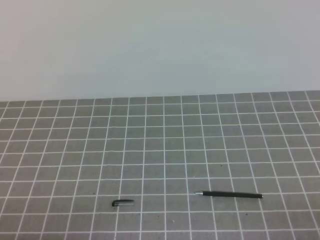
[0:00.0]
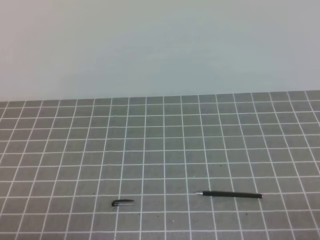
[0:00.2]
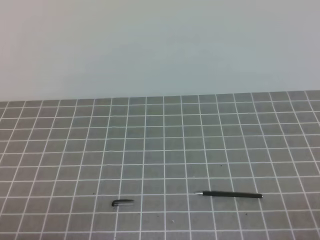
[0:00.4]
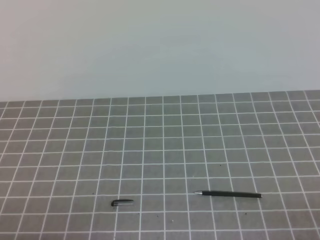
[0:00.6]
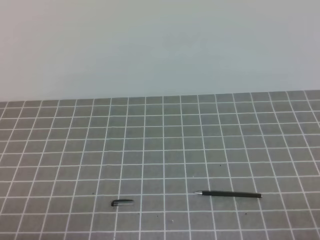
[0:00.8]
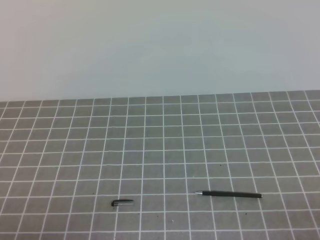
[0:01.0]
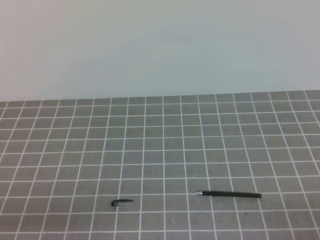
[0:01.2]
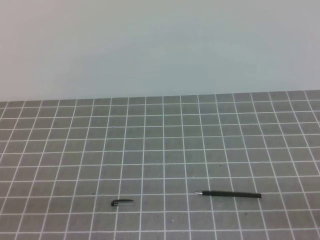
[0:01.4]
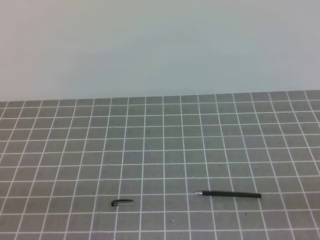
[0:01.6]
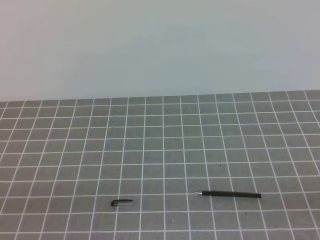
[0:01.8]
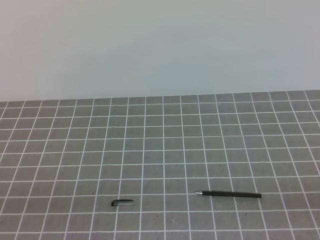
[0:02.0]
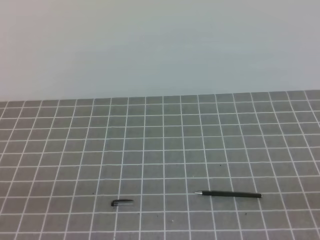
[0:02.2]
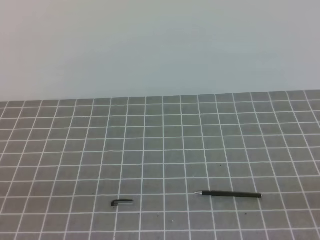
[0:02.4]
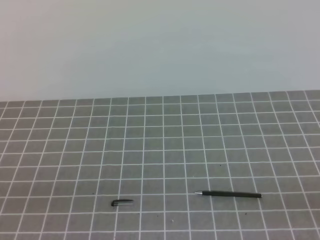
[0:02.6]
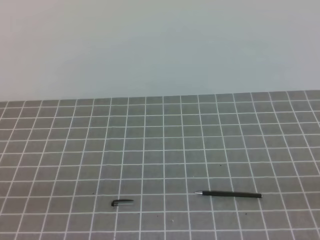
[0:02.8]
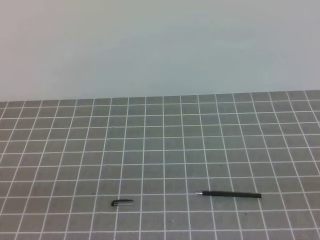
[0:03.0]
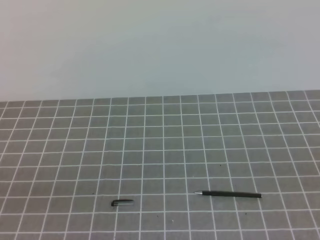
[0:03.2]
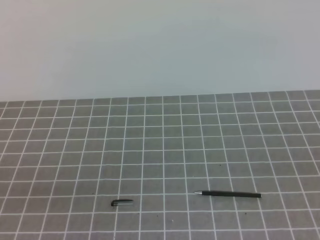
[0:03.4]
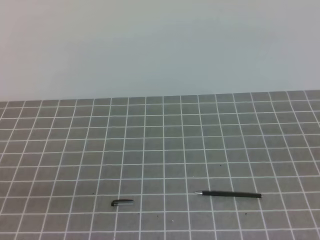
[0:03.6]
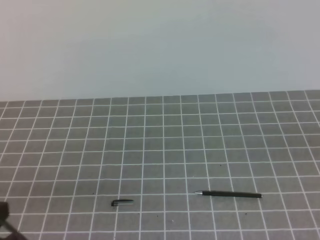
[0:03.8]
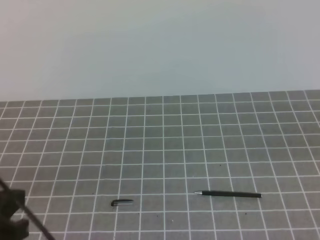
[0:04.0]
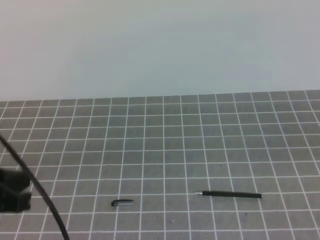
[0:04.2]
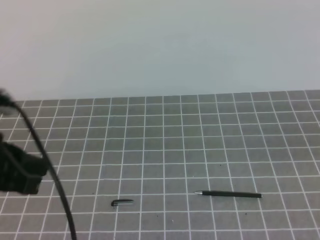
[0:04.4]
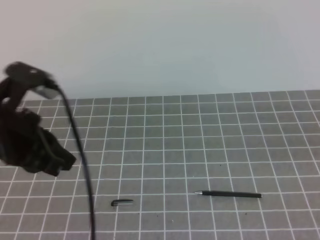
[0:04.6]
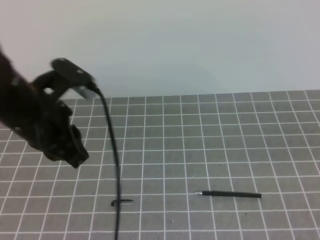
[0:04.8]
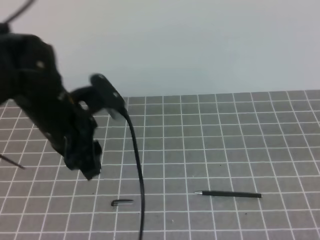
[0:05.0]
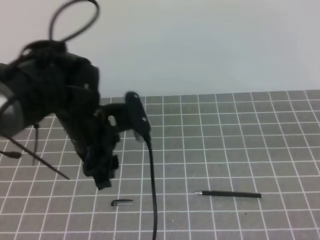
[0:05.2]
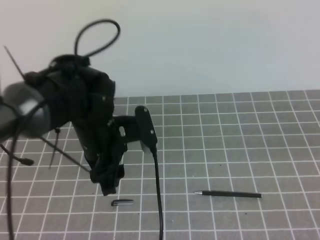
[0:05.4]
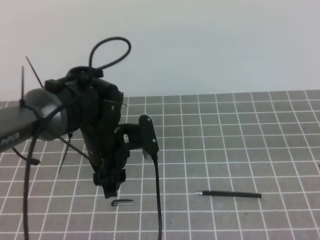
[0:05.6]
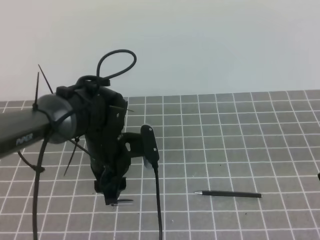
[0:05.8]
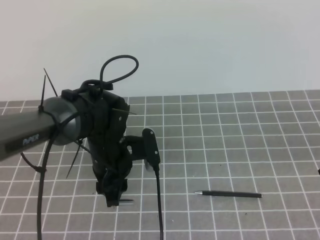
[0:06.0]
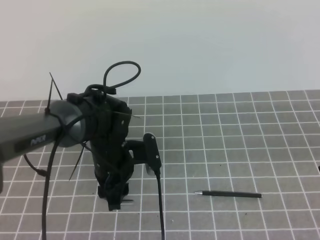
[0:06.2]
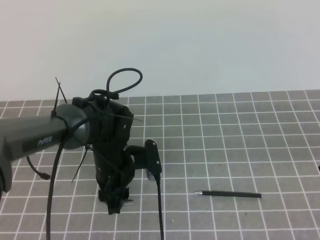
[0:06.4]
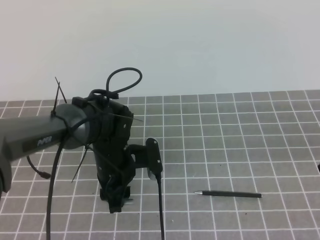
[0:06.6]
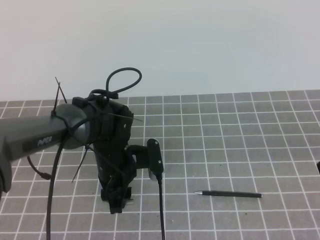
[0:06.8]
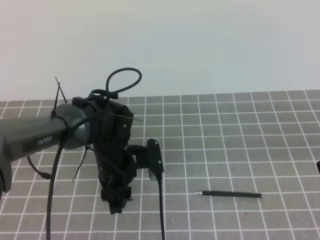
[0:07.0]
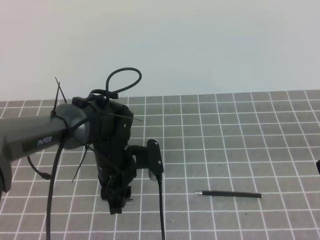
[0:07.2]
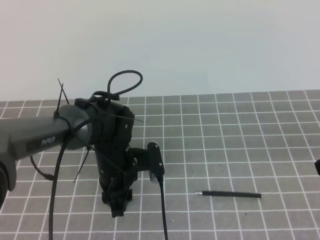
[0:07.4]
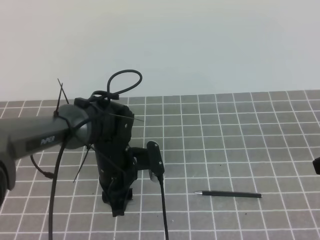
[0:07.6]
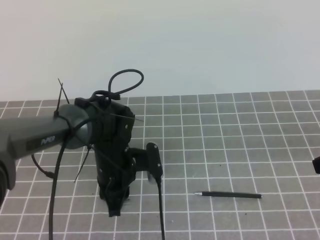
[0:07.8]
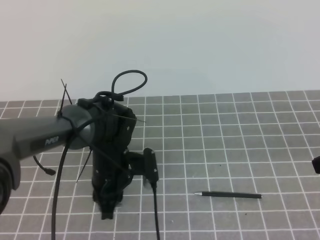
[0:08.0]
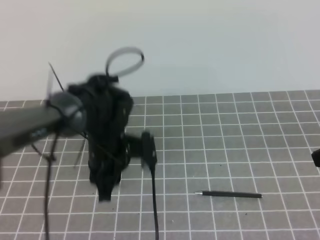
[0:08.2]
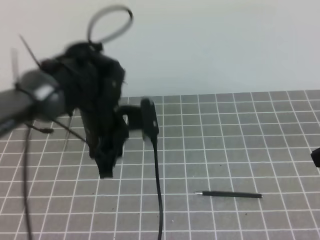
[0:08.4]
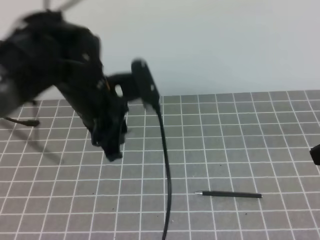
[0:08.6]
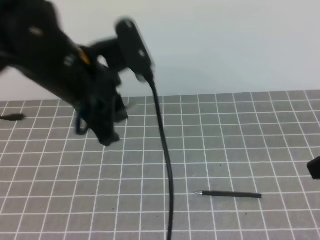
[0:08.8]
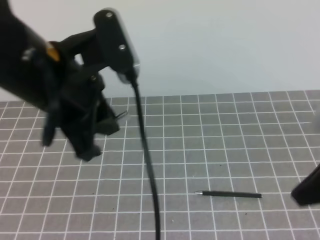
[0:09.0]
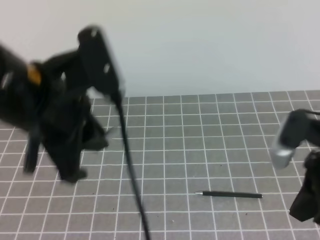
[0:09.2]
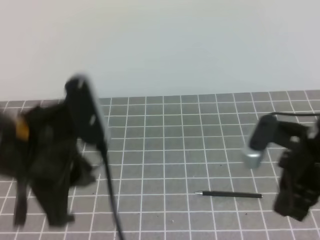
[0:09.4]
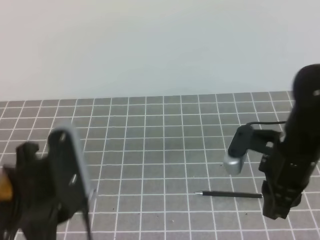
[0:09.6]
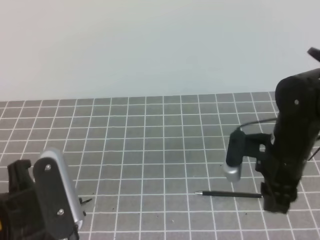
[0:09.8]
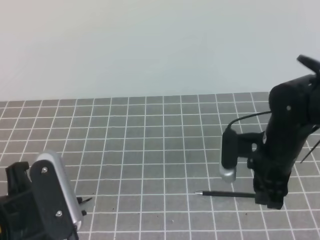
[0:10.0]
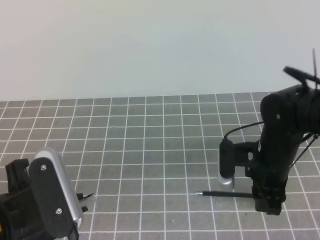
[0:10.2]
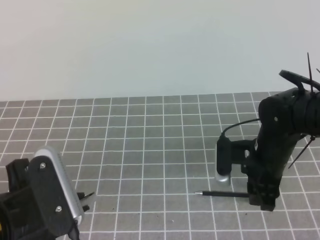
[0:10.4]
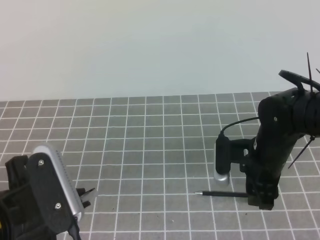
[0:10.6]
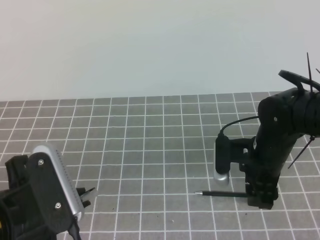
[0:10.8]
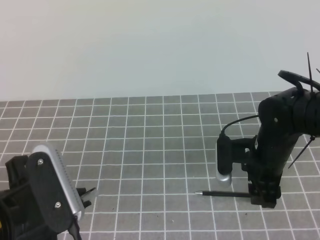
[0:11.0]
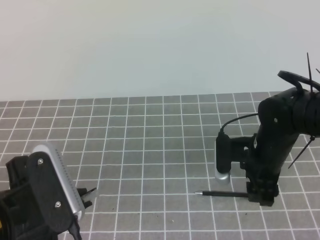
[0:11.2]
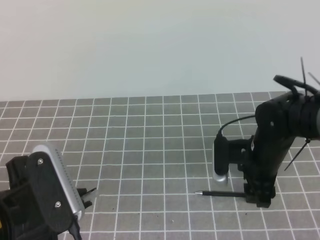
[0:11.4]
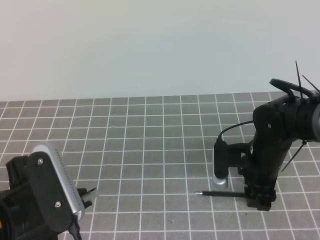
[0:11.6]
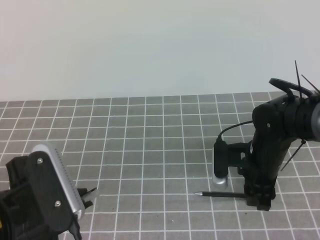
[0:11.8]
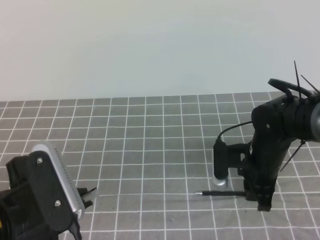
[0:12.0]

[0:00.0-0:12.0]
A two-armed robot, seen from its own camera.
Task of the whole recording: on the grey tablecloth, hold the pen cap in one hand and the pen in the other, then cover the pen cap.
0:03.0 to 0:04.4: The left gripper goes roughly 15 cm forward and upward.
0:04.4 to 0:06.0: The left gripper moves downward, forward and to the right, roughly 25 cm, and opens up.
0:06.0 to 0:07.6: The left gripper closes.
0:07.6 to 0:09.0: The left gripper heads upward, covering about 25 cm, while the right gripper ends up some 5 cm from where it was.
0:09.0 to 0:10.4: The left gripper goes some 15 cm downward, backward and to the left. The right gripper moves downward, forward and to the left, approximately 20 cm, and opens its fingers.
0:10.4 to 0:12.0: The right gripper closes.

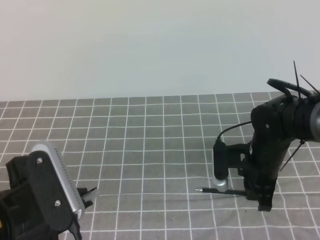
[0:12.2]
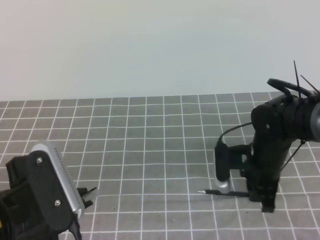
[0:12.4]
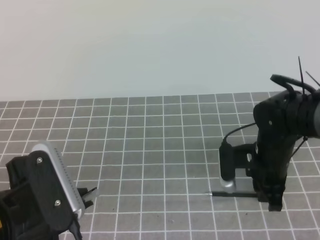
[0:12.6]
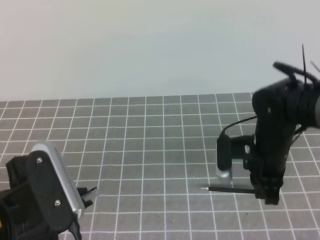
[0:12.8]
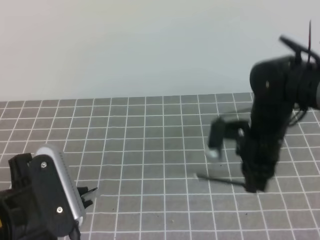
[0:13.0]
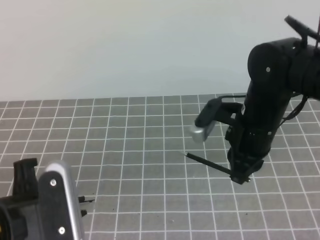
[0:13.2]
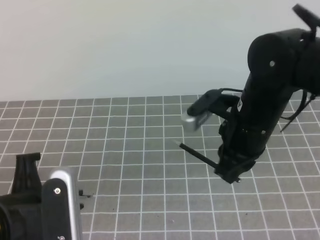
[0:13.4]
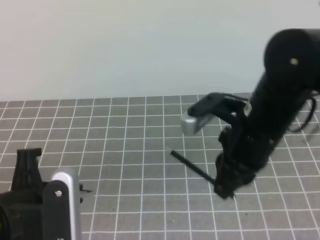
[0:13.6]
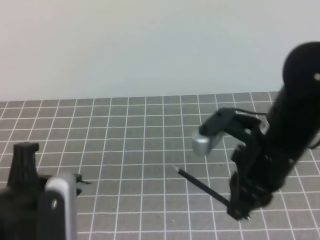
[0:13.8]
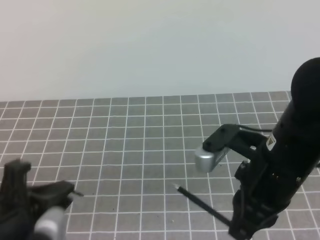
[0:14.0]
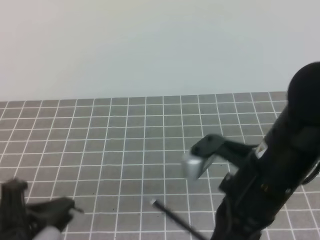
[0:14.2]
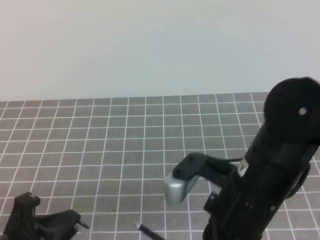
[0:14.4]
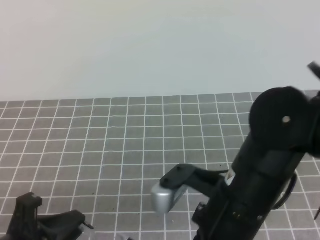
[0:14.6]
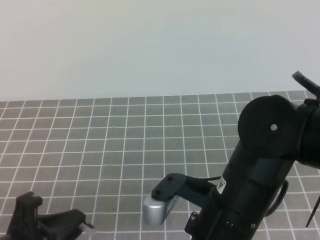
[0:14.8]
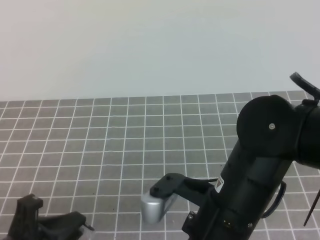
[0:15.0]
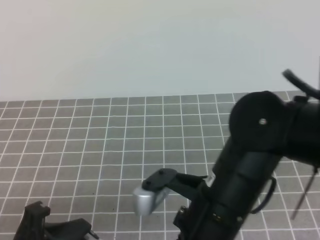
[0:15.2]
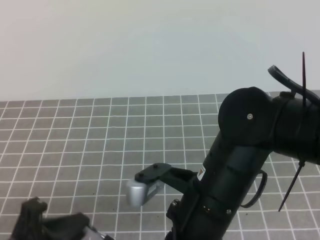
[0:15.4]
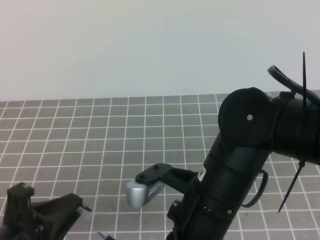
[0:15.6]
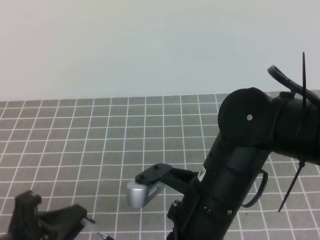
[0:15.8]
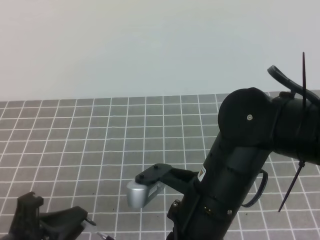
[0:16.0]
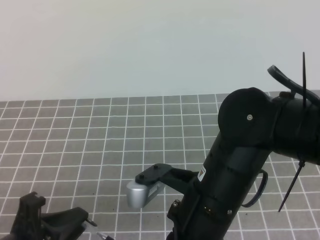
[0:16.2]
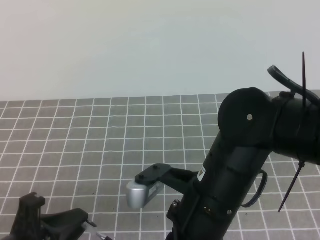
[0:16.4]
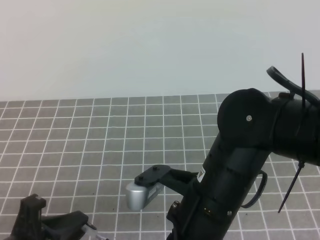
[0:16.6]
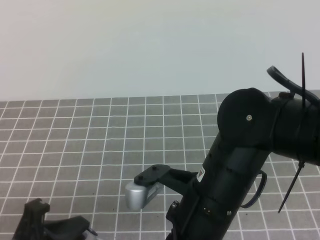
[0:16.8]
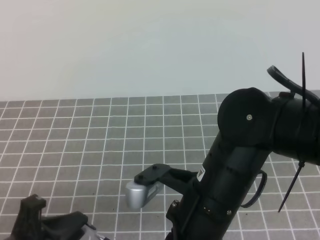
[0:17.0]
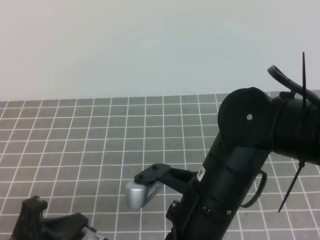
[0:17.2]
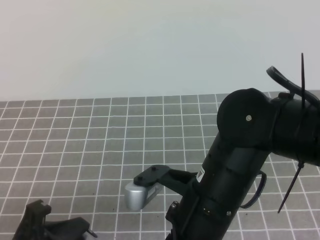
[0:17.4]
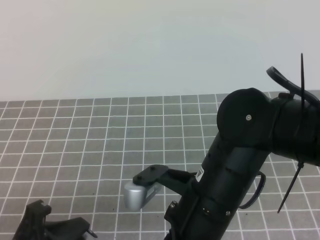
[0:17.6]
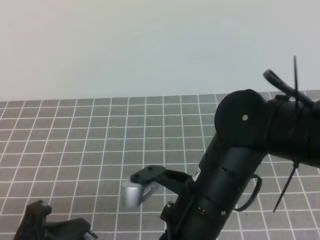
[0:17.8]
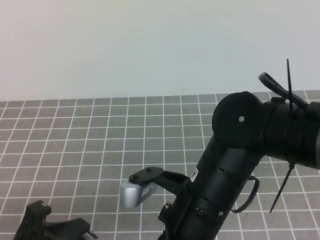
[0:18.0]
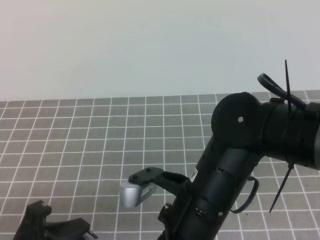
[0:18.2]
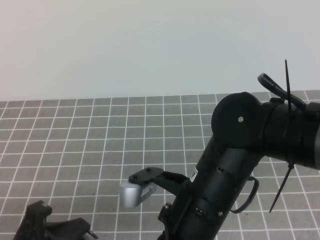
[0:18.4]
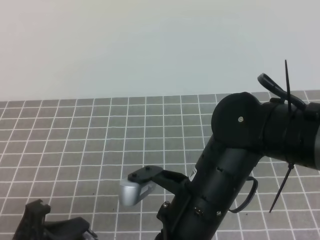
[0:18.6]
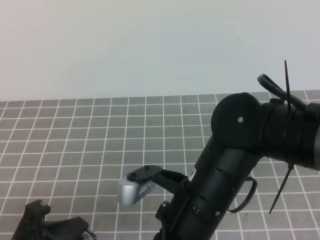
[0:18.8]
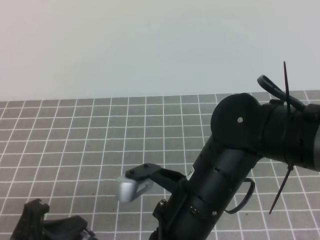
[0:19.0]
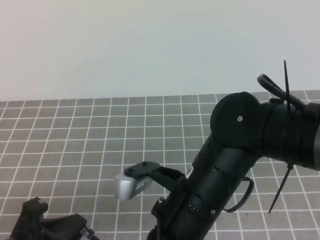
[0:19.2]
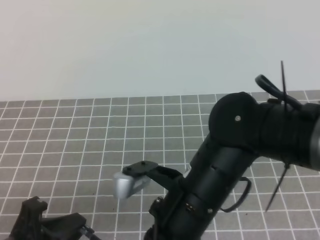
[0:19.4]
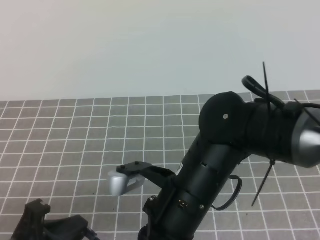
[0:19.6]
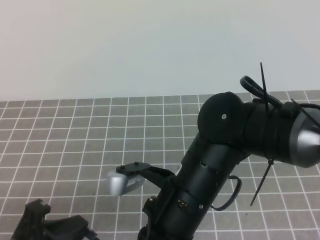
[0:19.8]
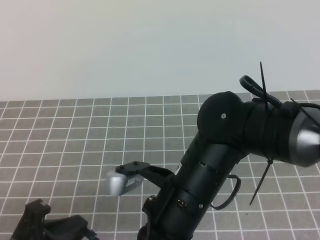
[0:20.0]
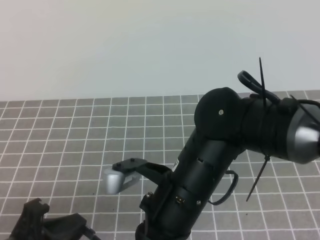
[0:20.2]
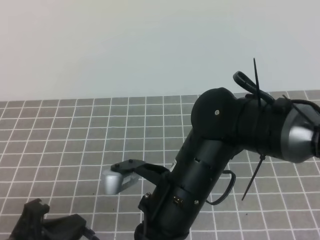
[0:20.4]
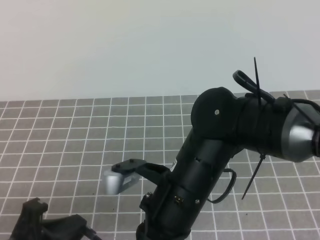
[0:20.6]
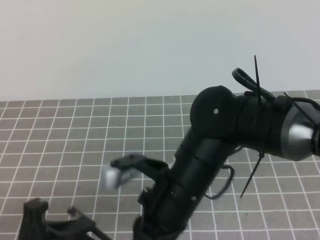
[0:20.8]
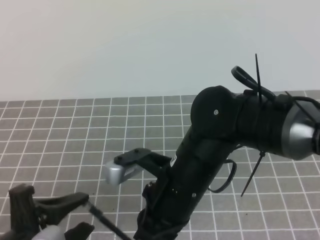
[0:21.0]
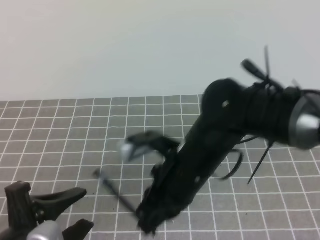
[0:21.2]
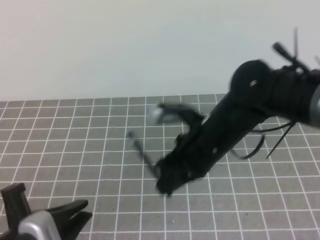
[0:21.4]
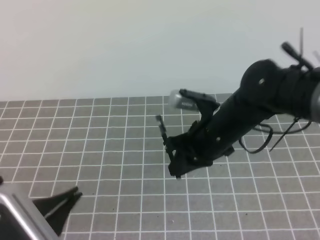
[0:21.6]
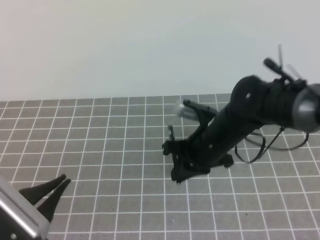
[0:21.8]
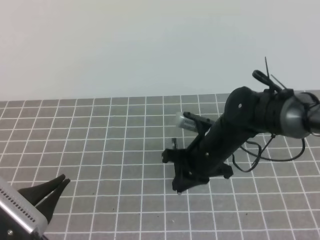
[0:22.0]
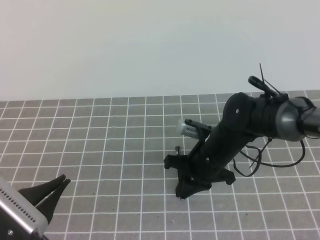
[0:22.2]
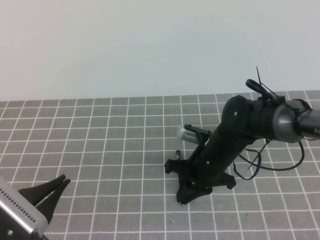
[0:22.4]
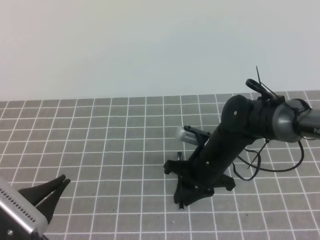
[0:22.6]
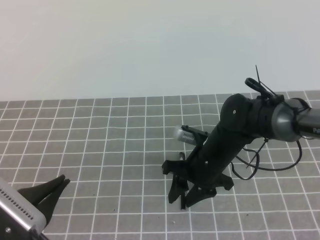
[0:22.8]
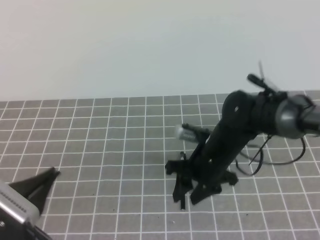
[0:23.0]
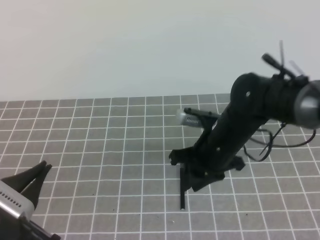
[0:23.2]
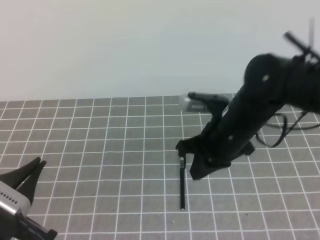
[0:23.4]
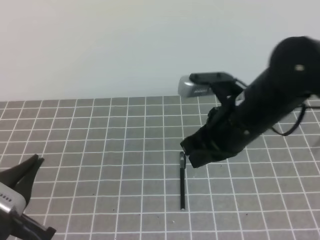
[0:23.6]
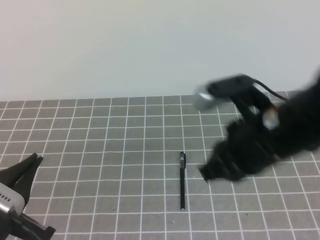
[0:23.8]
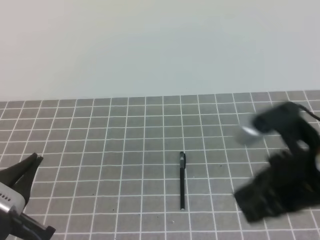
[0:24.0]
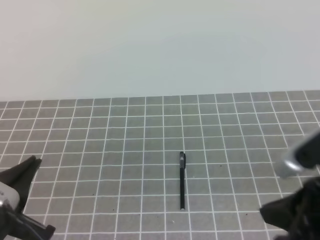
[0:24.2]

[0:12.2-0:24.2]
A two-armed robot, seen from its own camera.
Task of the whole recording: on the grey tablecloth, hold the pen cap in one hand and the pen in the other, then cover the pen cap.
0:12.2 to 0:13.8: The right gripper travels upward and backward by about 20 cm.
0:13.8 to 0:15.2: The left gripper shifts by approximately 5 cm; the right gripper is displaced to the left and backward by about 10 cm.
0:15.2 to 0:19.8: The grippers stay close to where they were, moving slightly.
0:19.8 to 0:21.2: The right gripper changes place by roughly 5 cm. Meanwhile the left gripper opens its fingers.
0:21.2 to 0:22.6: The left gripper closes its fingers. The right gripper moves downward and forward, approximately 15 cm, and opens up.
0:22.6 to 0:24.2: The right gripper moves backward, upward and to the right, roughly 25 cm, and closes up.
